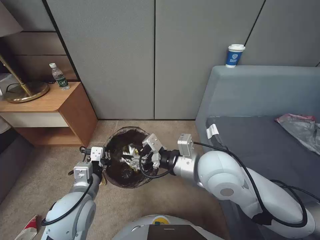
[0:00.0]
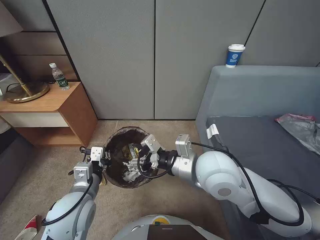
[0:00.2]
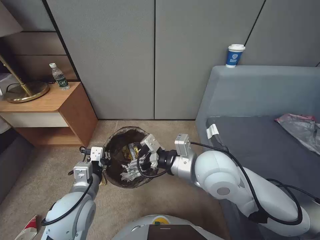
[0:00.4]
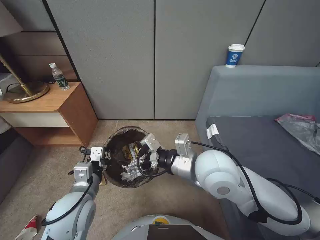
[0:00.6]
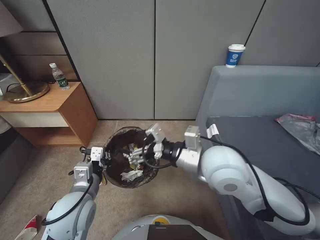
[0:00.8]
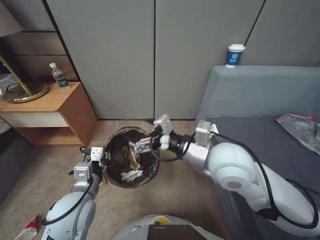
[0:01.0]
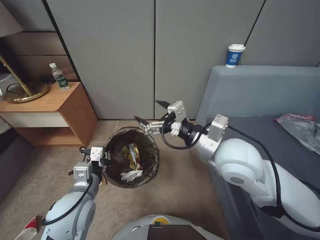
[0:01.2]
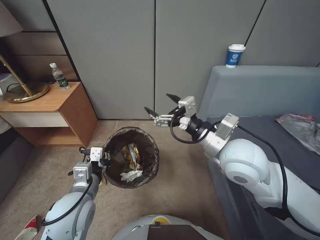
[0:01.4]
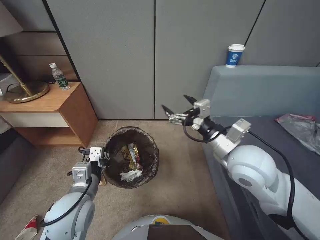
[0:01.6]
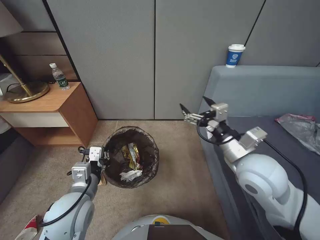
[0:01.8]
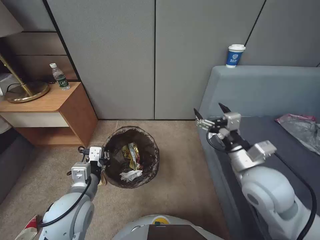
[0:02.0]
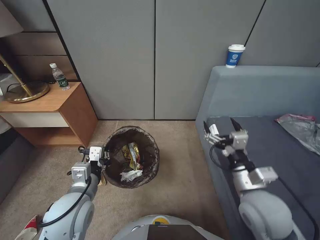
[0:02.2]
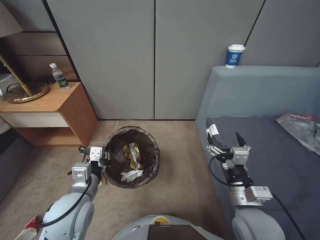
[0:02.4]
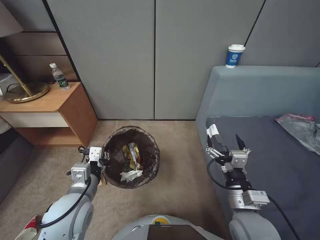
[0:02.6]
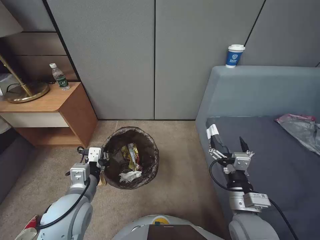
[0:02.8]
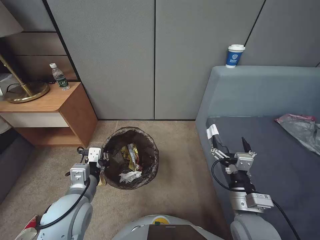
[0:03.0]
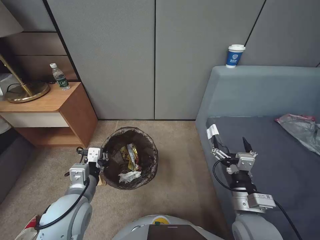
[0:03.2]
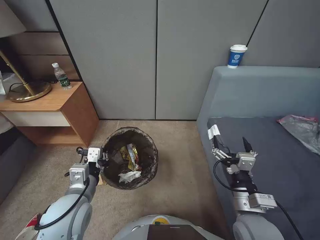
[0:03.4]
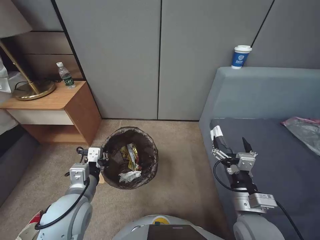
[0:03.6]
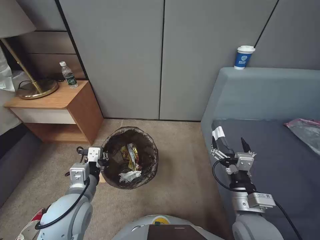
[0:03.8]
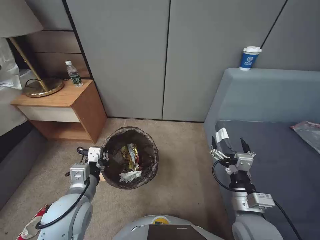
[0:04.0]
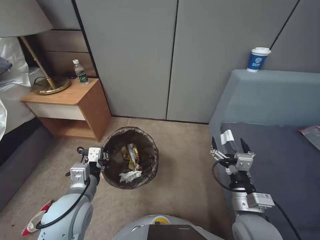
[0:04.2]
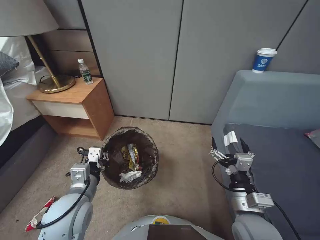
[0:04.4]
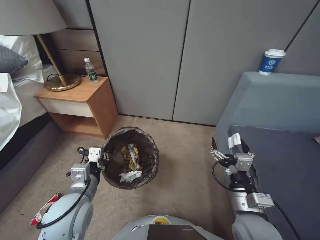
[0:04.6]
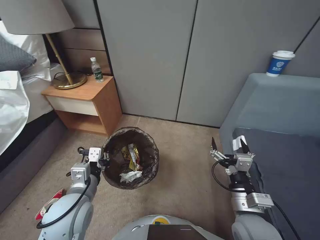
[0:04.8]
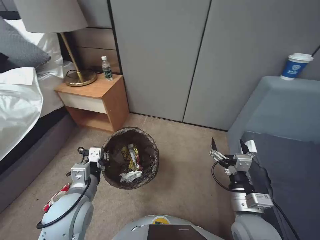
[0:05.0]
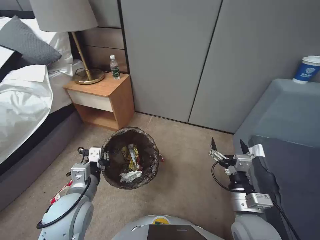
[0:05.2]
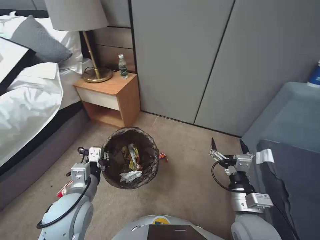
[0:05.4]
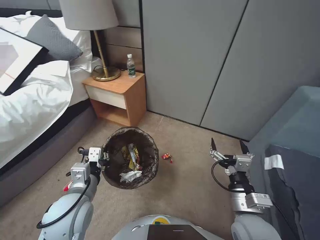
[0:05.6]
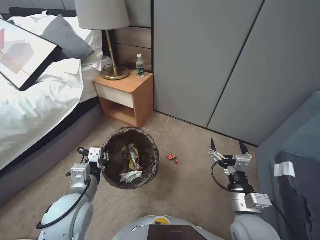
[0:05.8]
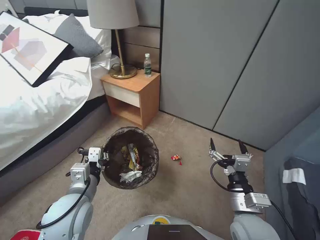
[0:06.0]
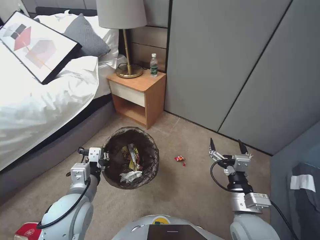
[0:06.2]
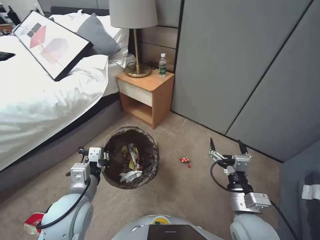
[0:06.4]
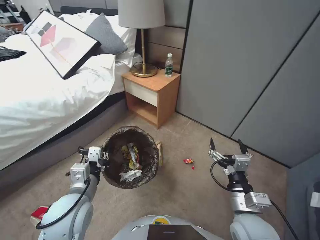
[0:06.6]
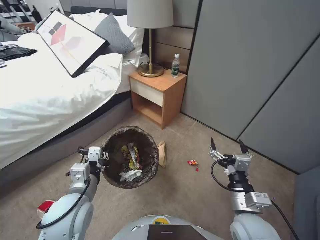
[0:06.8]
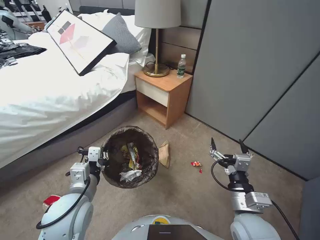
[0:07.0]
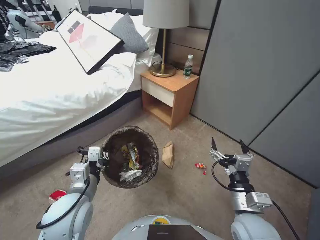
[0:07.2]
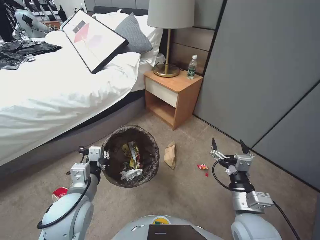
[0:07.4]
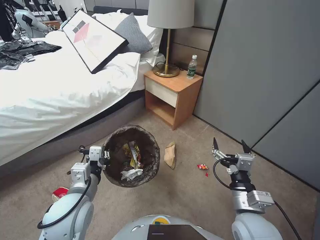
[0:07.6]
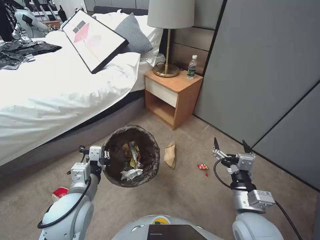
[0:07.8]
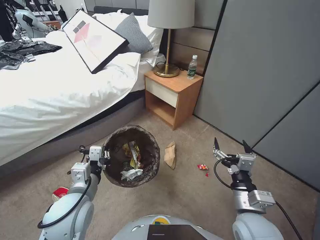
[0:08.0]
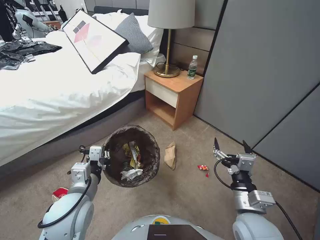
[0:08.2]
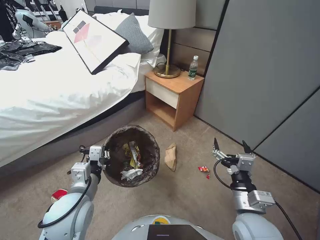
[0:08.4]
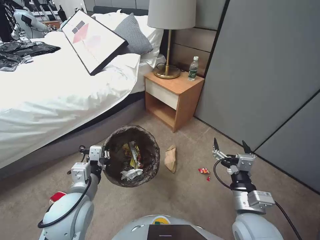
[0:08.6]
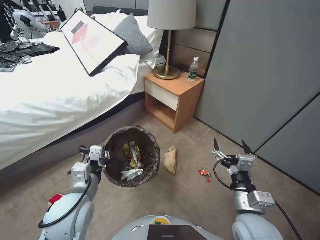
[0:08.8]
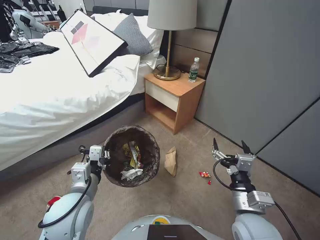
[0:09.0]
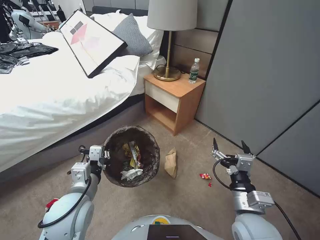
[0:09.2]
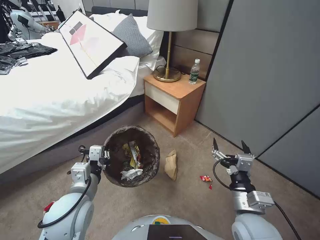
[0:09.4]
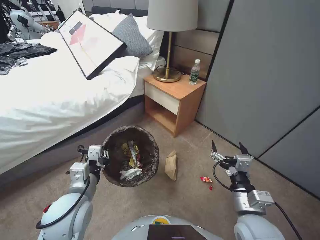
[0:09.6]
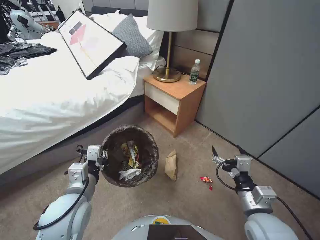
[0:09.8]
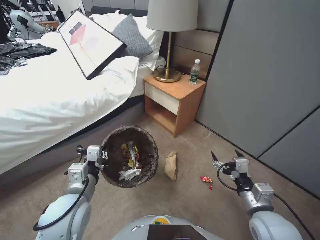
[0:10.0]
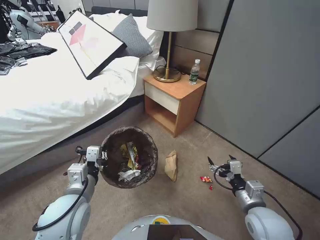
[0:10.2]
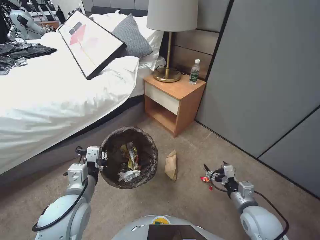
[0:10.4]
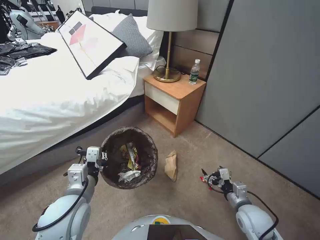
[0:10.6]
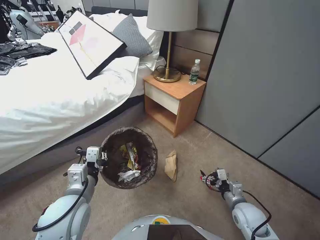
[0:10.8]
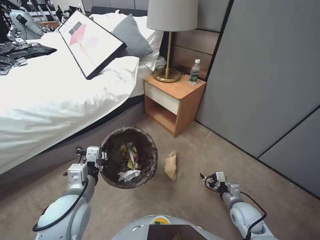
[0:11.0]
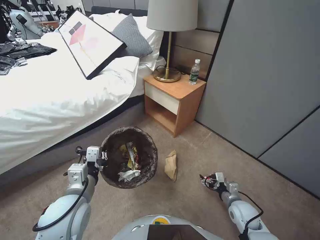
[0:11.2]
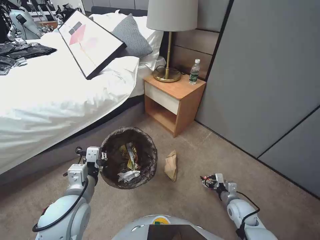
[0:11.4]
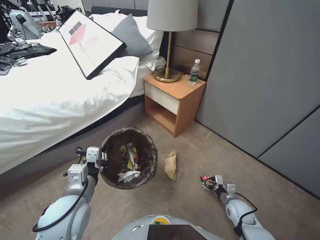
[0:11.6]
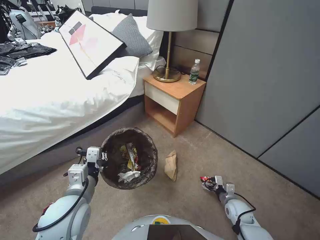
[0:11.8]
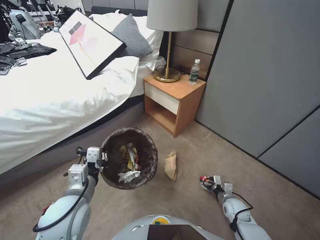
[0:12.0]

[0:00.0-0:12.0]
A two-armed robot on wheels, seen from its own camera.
Task of the whole recording: Pick up the trash bin, then pick up the garbage from the floor and place it into the trash bin.
0:00.0 to 0:01.6: The right gripper heads to the right, covering some 5 cm, and opens up.
0:01.6 to 0:03.0: The right gripper is displaced downward and backward by approximately 20 cm.
0:07.6 to 0:09.0: Both grippers stay put.
0:09.0 to 0:10.4: The right gripper heads to the right and downward, covering roughly 10 cm.
0:10.4 to 0:12.0: The right gripper goes approximately 20 cm downward.

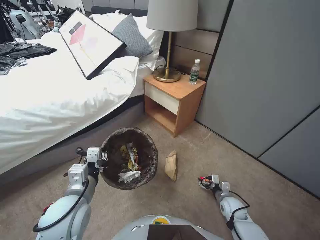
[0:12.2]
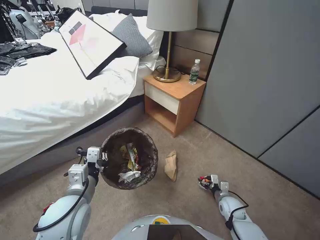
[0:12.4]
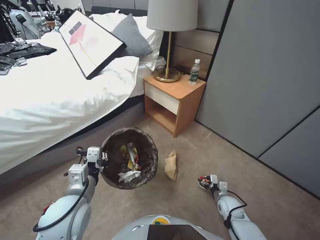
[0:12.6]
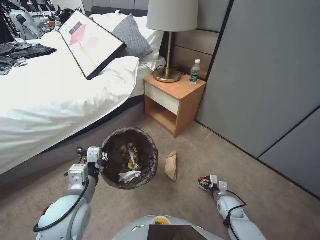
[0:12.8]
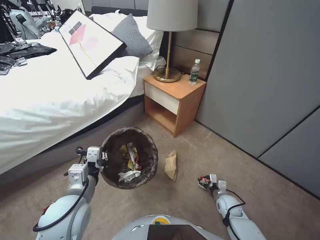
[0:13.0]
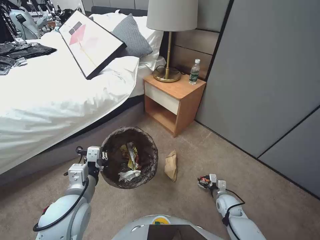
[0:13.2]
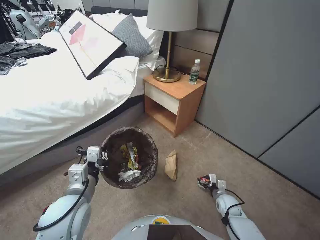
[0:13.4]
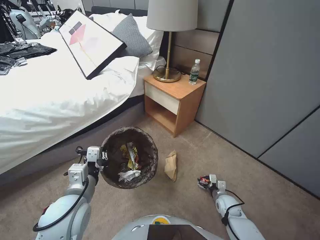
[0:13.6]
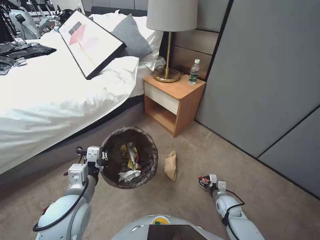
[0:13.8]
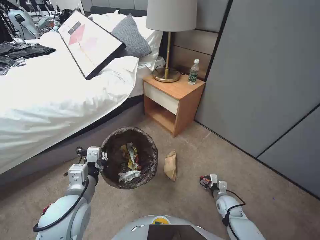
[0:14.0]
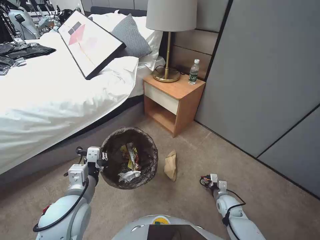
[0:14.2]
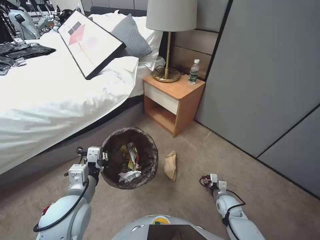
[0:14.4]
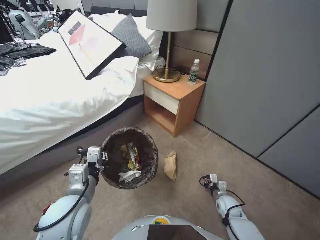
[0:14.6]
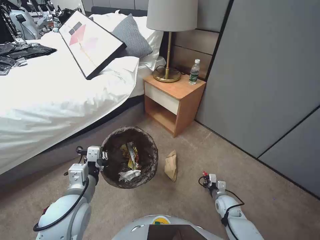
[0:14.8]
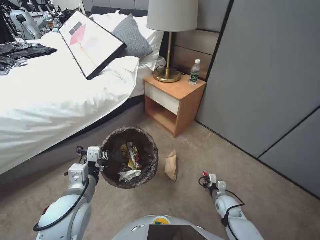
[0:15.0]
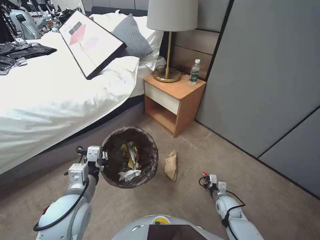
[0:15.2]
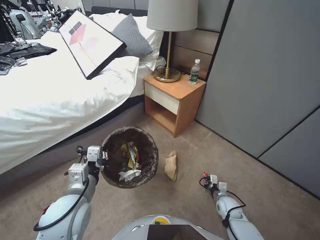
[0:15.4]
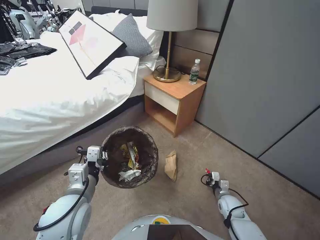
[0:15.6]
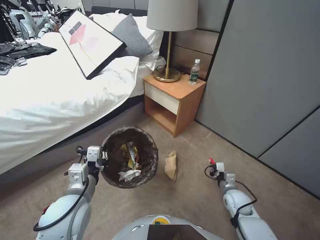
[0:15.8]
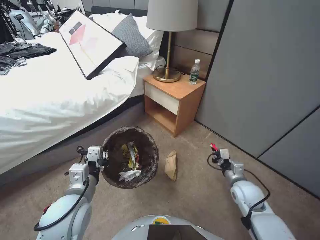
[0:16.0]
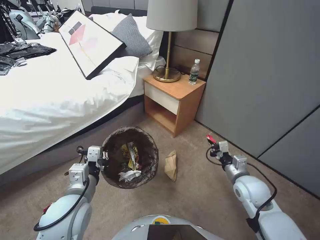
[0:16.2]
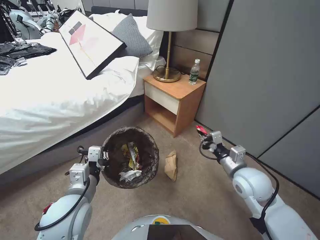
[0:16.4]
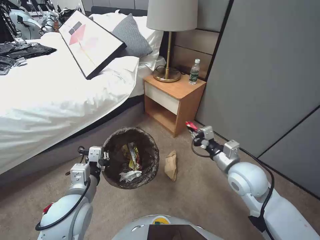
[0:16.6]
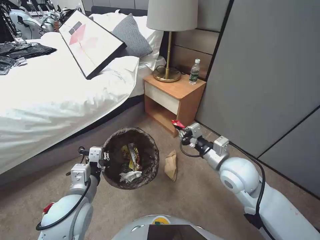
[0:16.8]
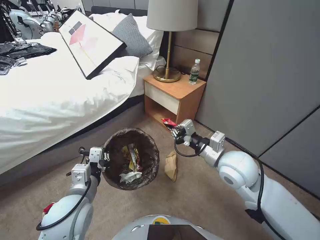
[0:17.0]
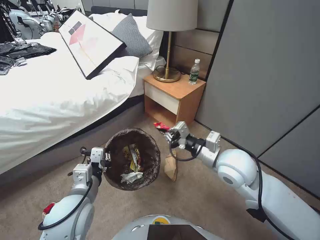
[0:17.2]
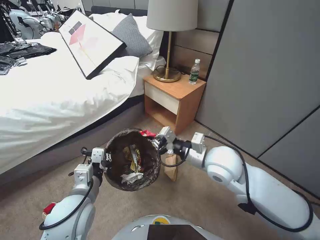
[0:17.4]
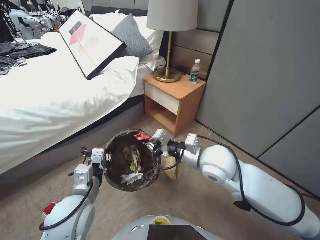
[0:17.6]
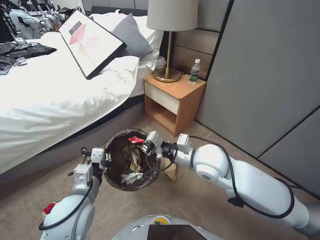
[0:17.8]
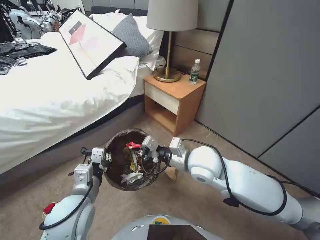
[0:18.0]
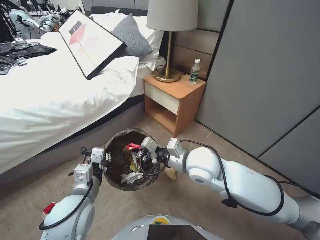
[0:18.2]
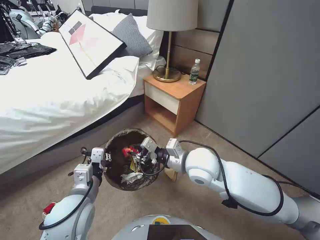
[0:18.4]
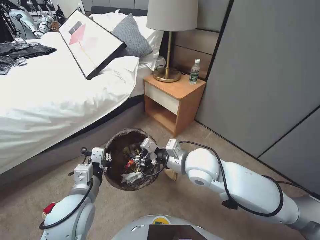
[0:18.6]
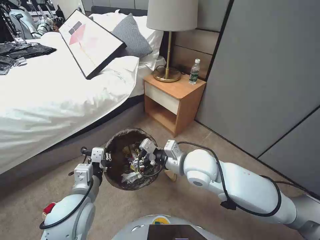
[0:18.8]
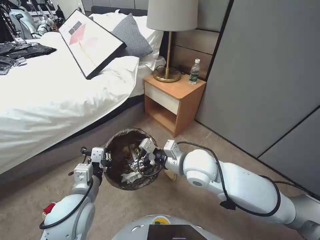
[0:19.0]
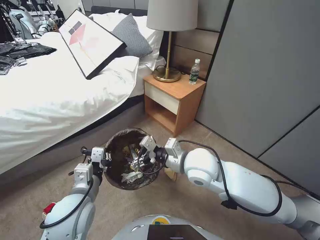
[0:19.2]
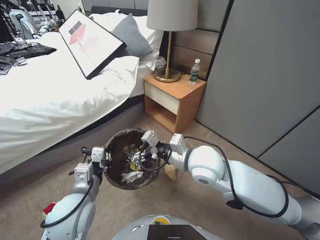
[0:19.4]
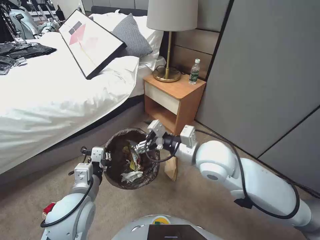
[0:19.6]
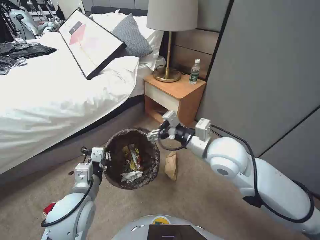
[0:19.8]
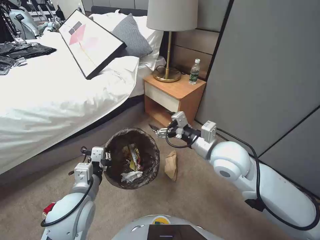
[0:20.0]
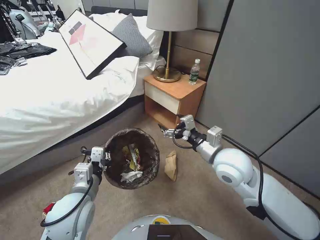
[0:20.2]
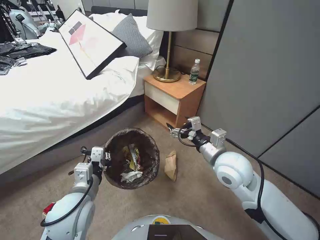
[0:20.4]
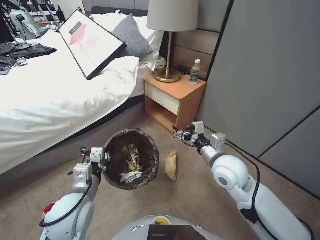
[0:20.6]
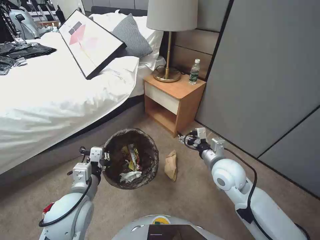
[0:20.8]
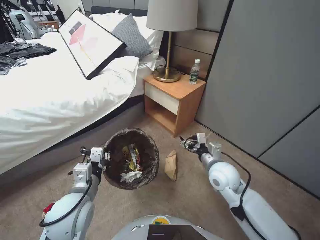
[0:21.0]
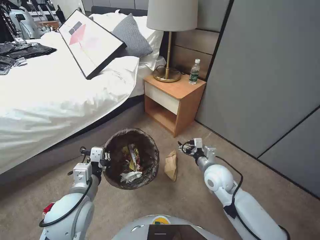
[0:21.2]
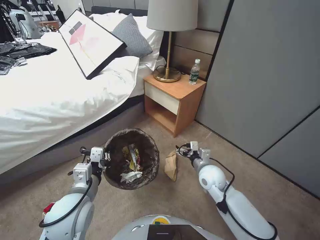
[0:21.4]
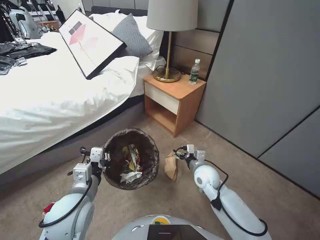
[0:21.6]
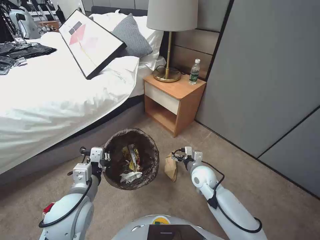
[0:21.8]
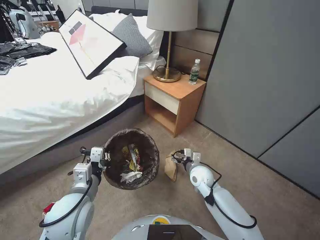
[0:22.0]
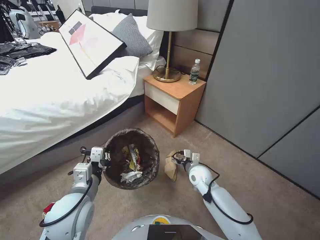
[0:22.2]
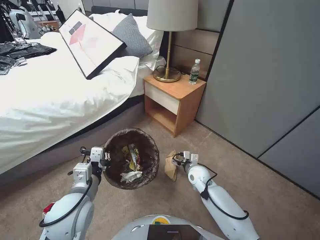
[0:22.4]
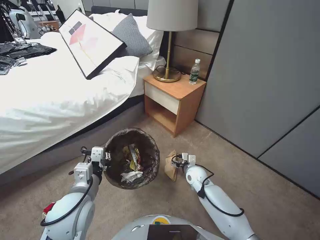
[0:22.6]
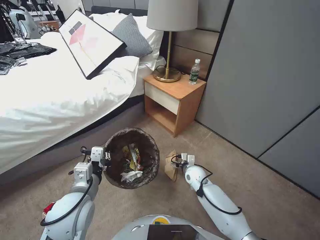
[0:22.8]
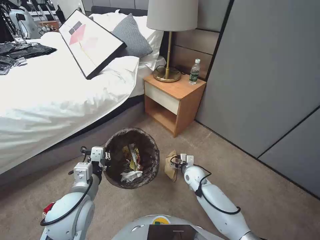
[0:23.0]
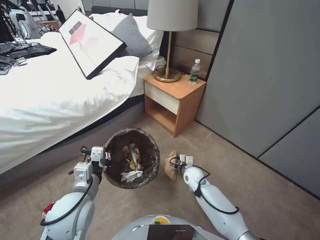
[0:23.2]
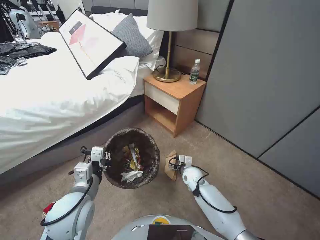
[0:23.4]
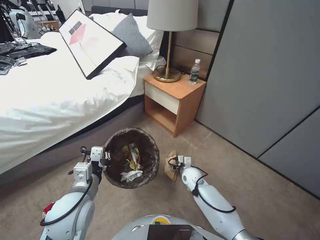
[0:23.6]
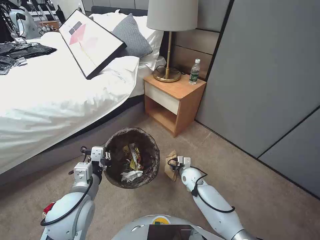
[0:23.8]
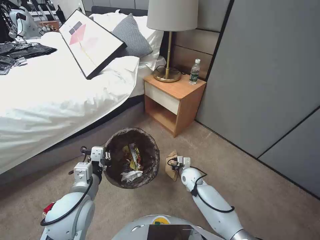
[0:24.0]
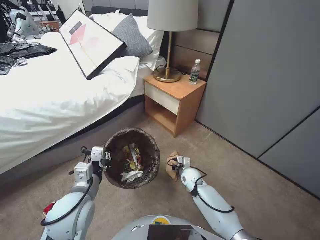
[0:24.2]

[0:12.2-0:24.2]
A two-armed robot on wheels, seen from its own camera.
Task of the whole recording: Pick up the trash bin, then pick up the garbage from the floor and place it into the trash bin.
0:12.2 to 0:13.8: There are only small adjustments of the grippers.
0:15.2 to 0:16.6: The right gripper is displaced upward by about 30 cm.
0:16.6 to 0:18.2: The right gripper goes roughly 15 cm to the left.
0:18.2 to 0:19.8: The right gripper heads upward, covering approximately 5 cm, and opens.
0:19.8 to 0:21.2: The right gripper heads downward and to the right, covering approximately 20 cm.
0:21.2 to 0:22.6: The right gripper heads downward, covering about 15 cm.
0:22.6 to 0:24.2: The right gripper closes.
